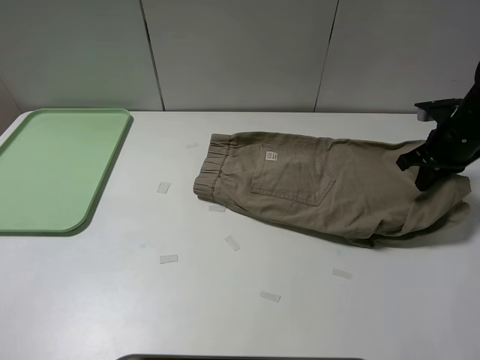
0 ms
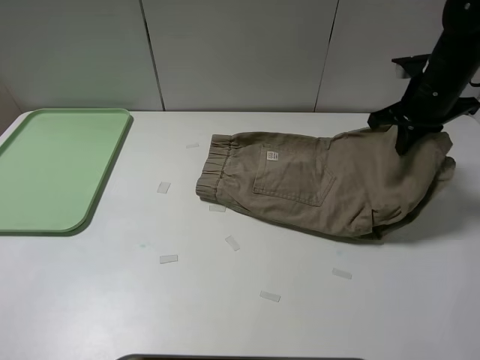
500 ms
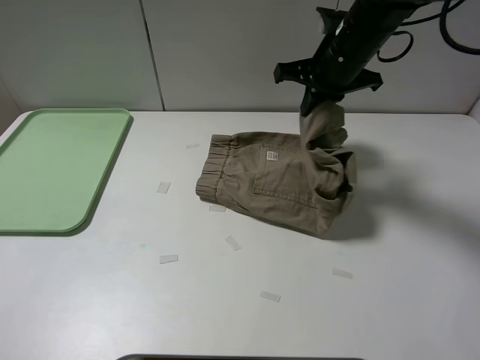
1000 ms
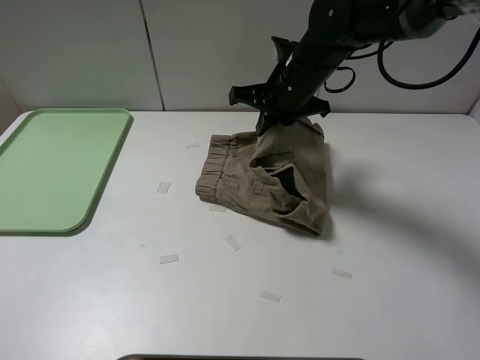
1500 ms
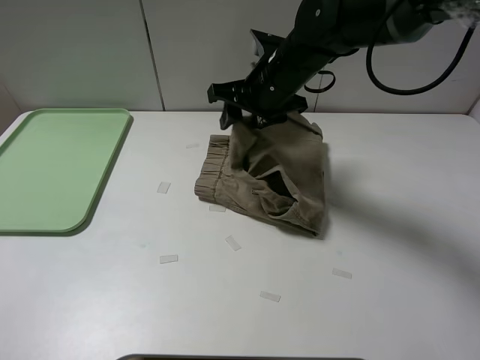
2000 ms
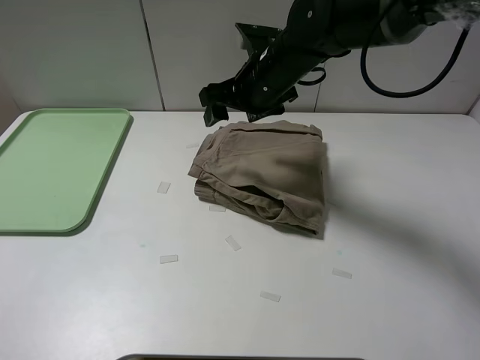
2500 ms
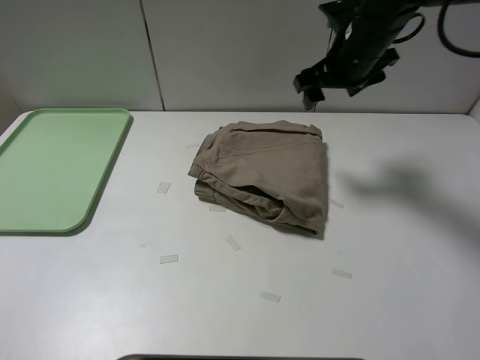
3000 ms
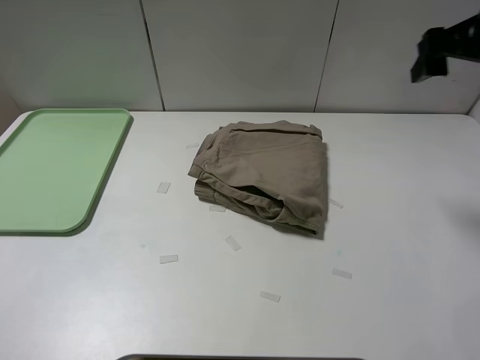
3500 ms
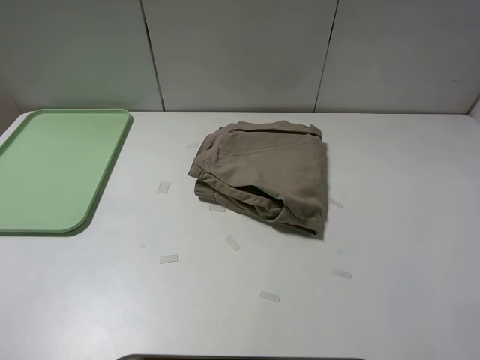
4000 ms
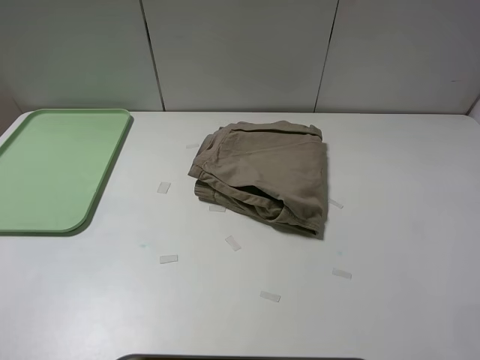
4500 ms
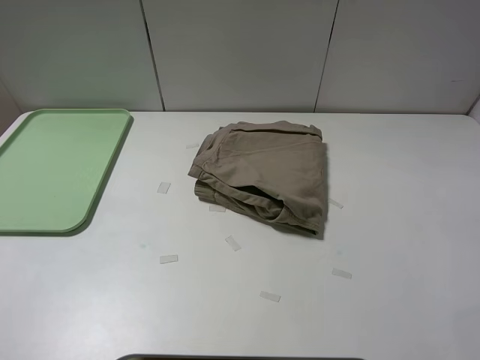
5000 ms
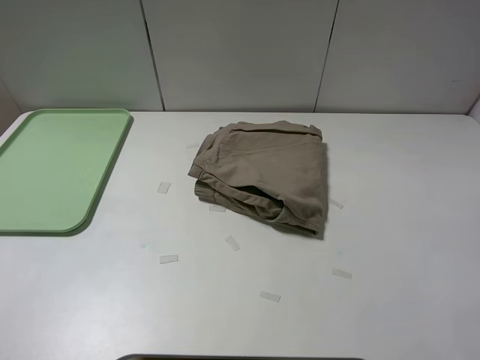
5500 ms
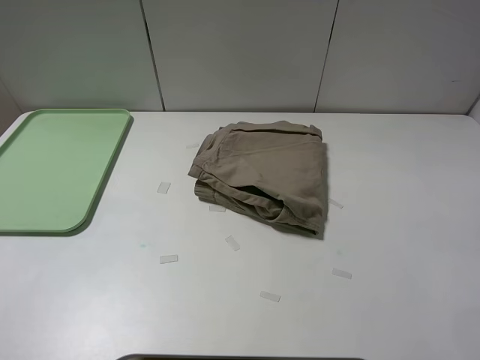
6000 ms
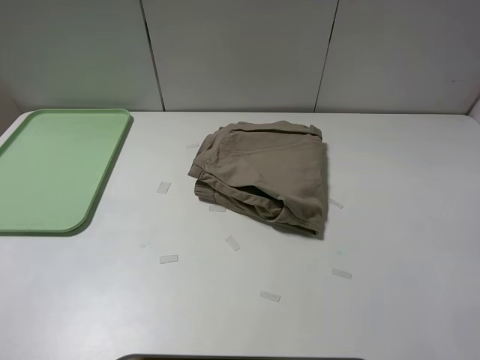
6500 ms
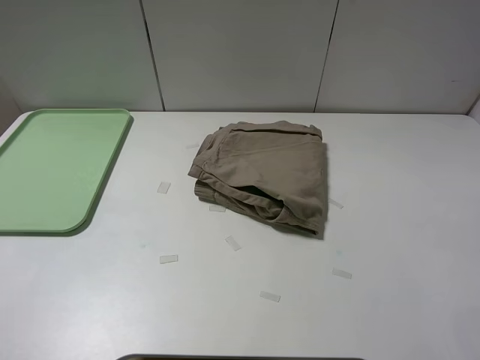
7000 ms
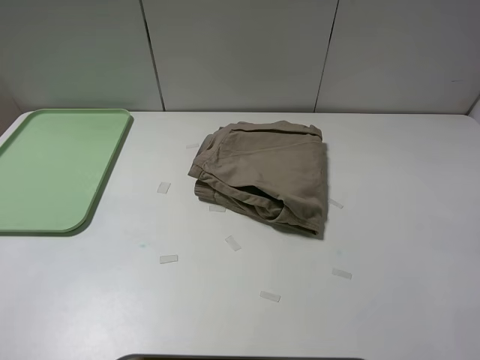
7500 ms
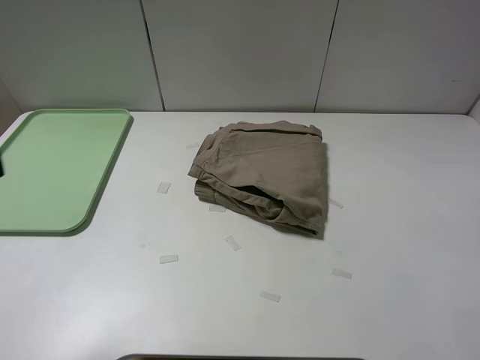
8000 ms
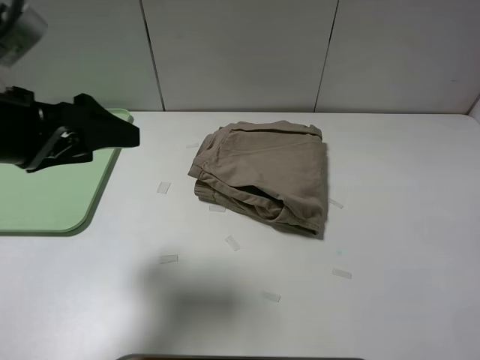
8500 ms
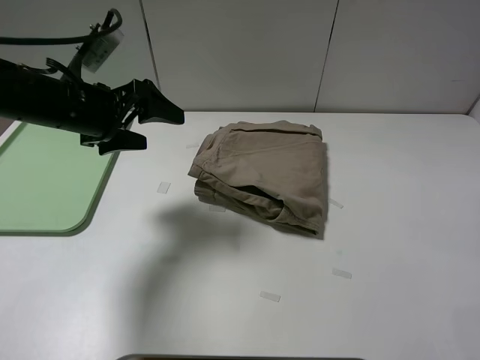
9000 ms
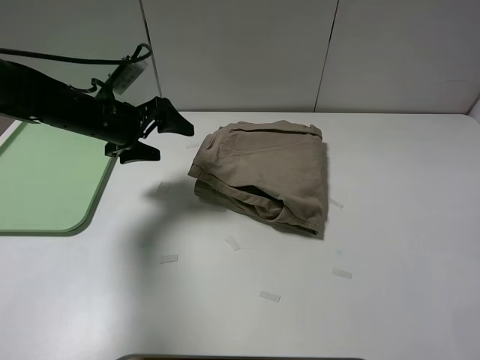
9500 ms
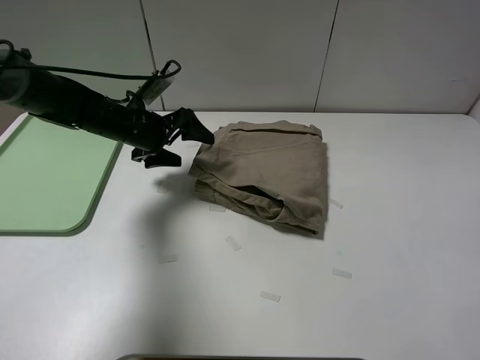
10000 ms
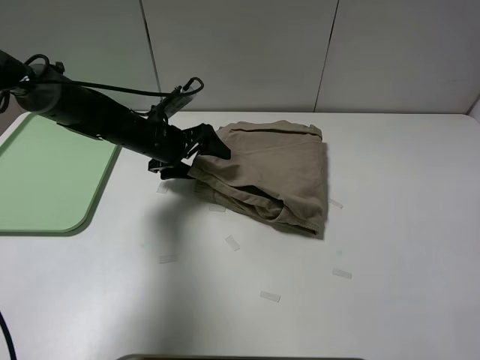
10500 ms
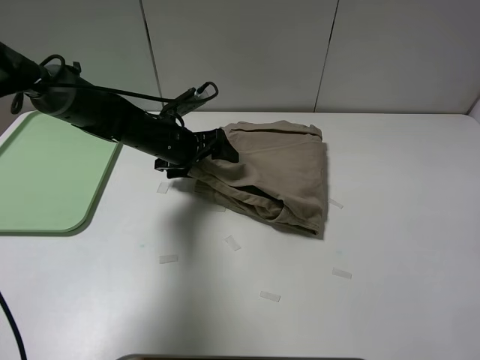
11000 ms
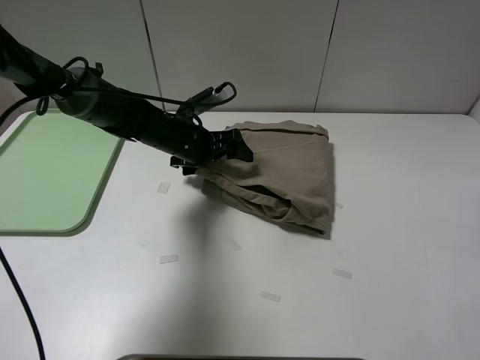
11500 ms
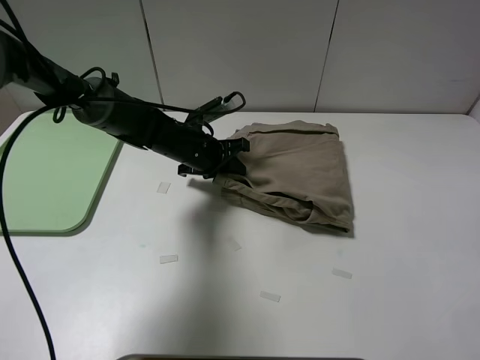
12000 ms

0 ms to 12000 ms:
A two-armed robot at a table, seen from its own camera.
Task of the whole recording: fold the khaki jeans in half with two grippers, then fold them in half again, and use the left claw to place the folded fold khaki jeans on the tray.
Step, 0 ms to 2000 ms: Fold the khaki trousers from right to left with the right gripper.
0 ms to 2000 ms: The right gripper moves to the left, roughly 30 cm, and opens its fingers.
2000 ms to 4000 ms: The right gripper shifts about 40 cm to the right, backward and upward.
8000 ms to 10000 ms: The left gripper travels forward and downward by approximately 35 cm.
10000 ms to 12000 ms: The left gripper moves to the right, roughly 10 cm, and closes its fingers.

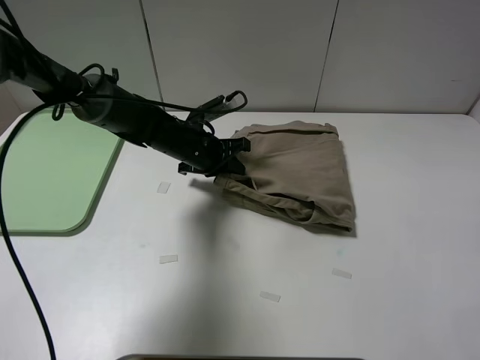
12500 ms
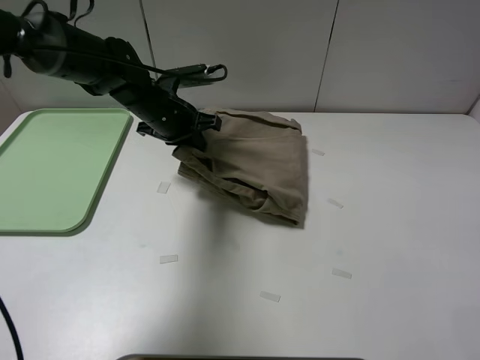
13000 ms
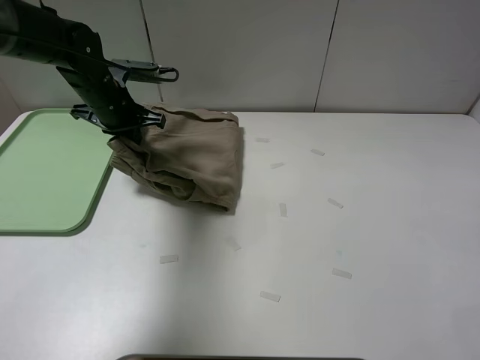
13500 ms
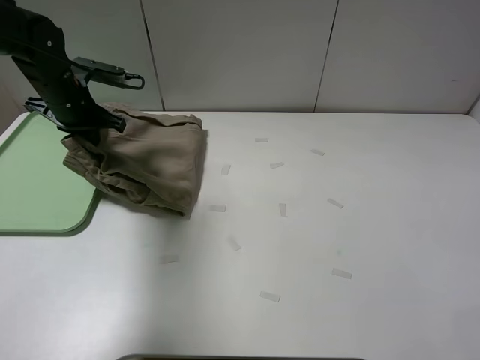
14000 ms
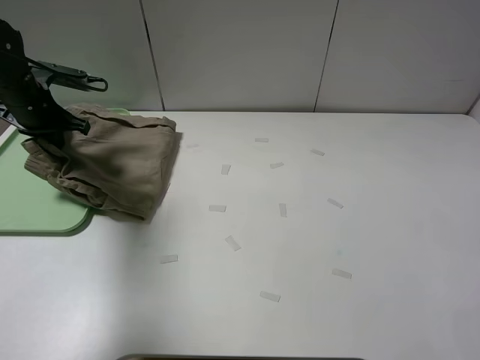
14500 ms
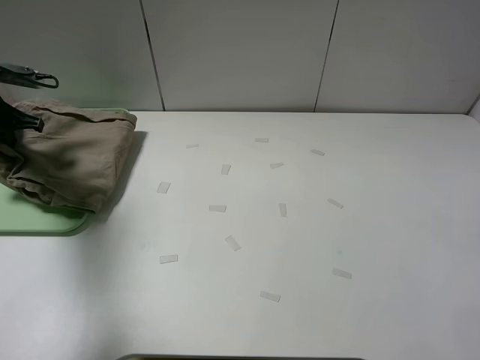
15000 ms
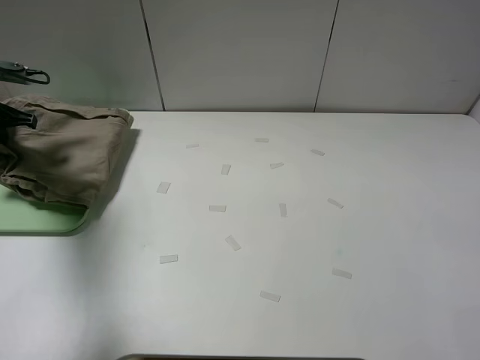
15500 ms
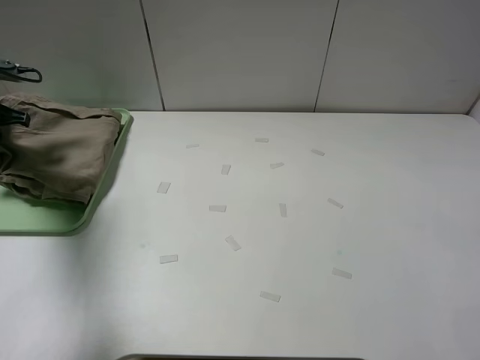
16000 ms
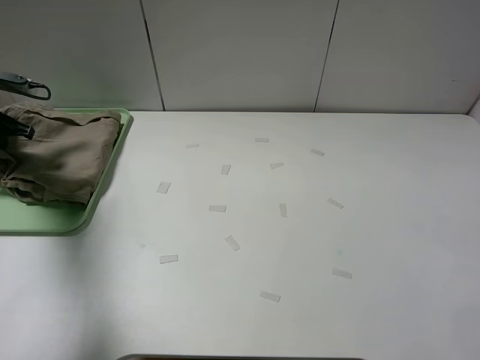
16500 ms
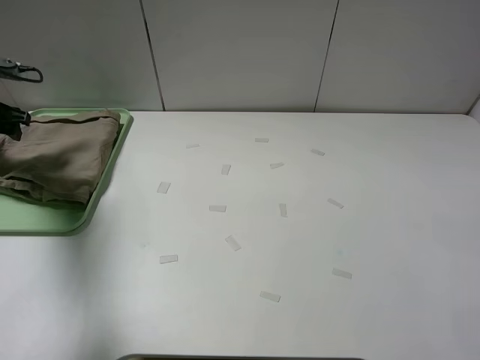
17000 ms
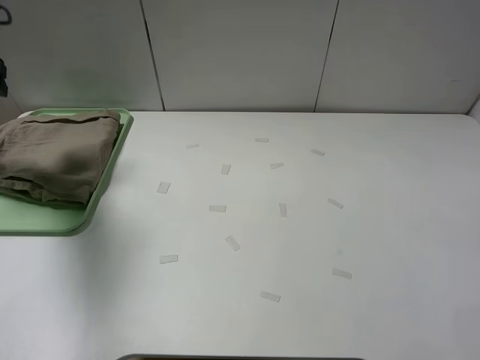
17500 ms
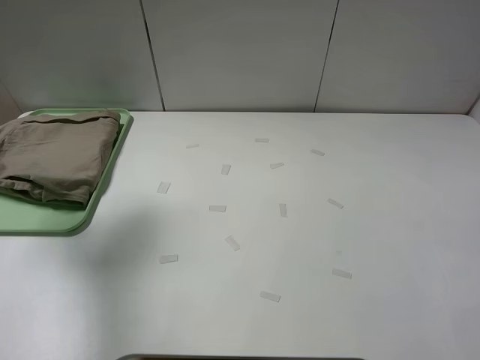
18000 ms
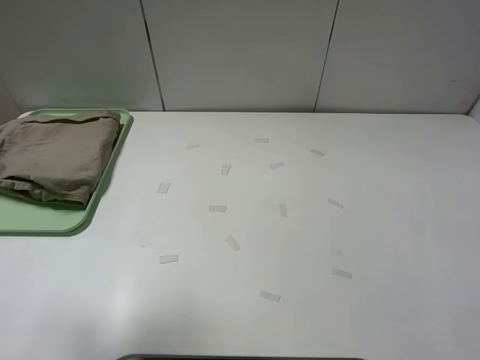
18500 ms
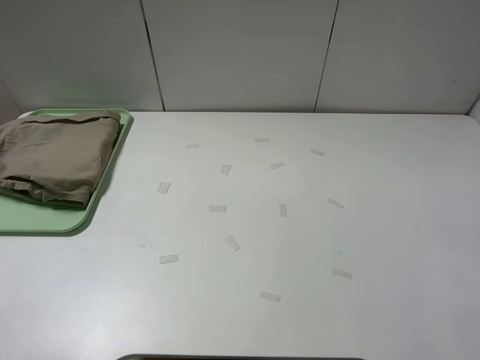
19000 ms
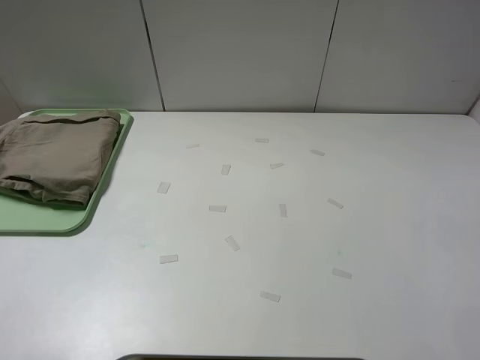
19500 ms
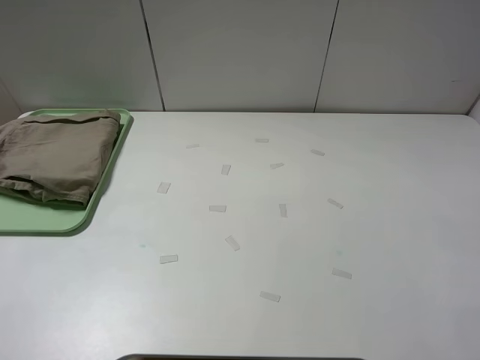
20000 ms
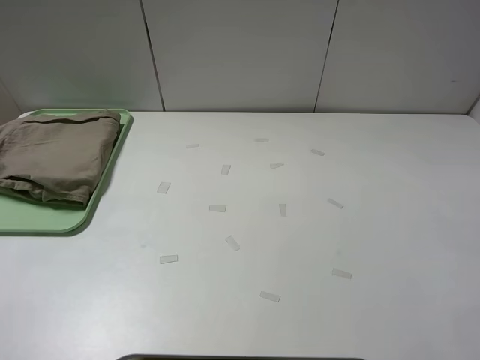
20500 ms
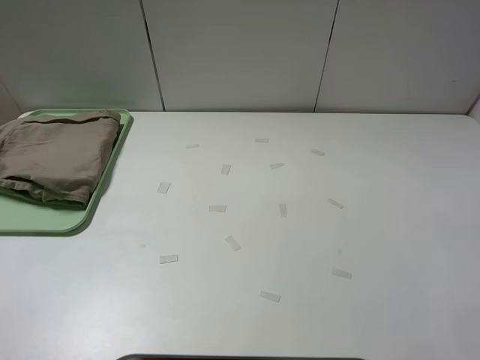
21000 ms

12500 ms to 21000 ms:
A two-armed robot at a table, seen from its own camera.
Task of the whole recording: fold the khaki jeans in half with two grippers, then fold them in half again, and use the left claw to place the folded fold khaki jeans on the tray.
Step, 12500 ms to 17000 ms: Place the folded khaki trousers on the green tray with the left gripper.
12500 ms to 14500 ms: The left gripper is displaced to the left by some 25 cm.
14500 ms to 16500 ms: The left gripper heads to the left, covering roughly 10 cm.
16500 ms to 19000 ms: The left gripper travels backward by roughly 35 cm, and opens its fingers.
